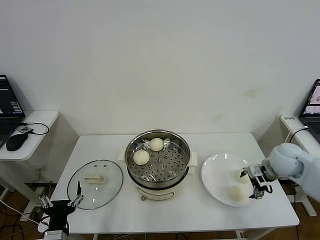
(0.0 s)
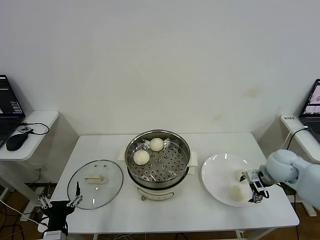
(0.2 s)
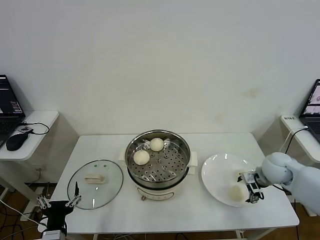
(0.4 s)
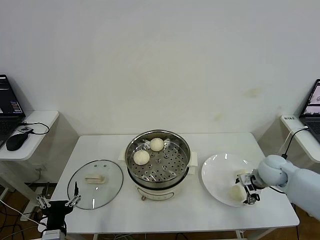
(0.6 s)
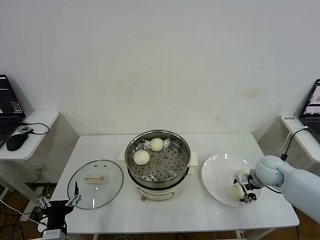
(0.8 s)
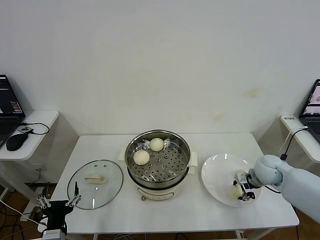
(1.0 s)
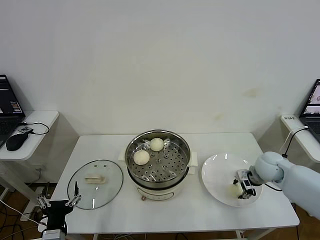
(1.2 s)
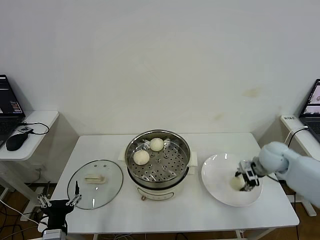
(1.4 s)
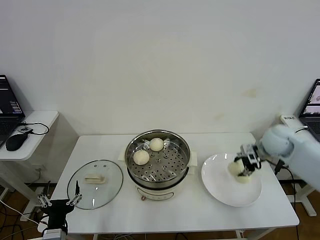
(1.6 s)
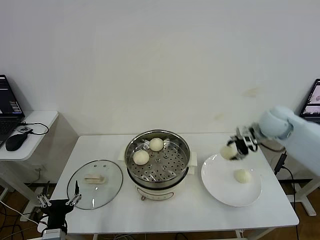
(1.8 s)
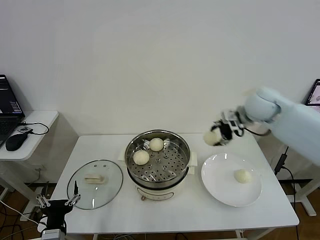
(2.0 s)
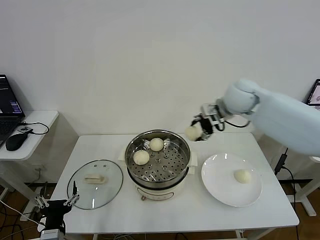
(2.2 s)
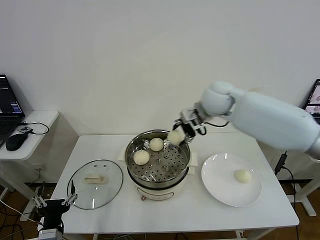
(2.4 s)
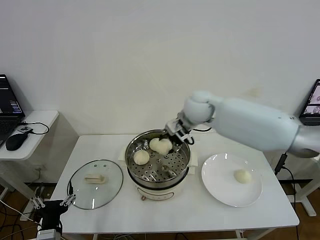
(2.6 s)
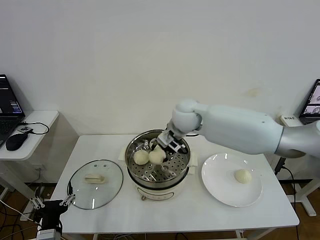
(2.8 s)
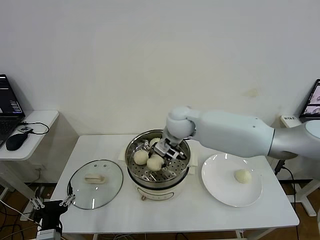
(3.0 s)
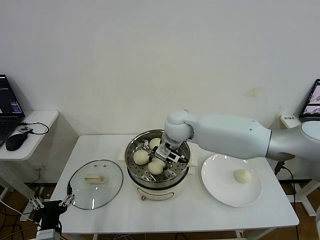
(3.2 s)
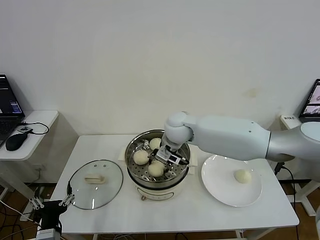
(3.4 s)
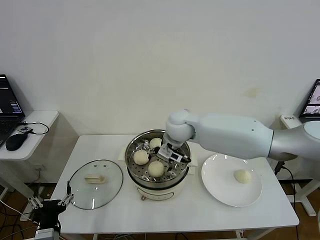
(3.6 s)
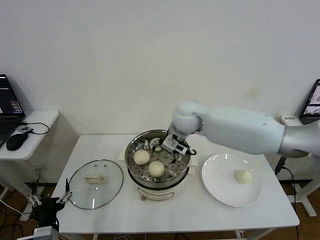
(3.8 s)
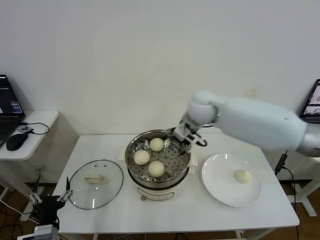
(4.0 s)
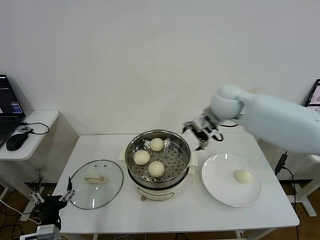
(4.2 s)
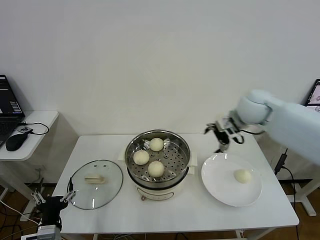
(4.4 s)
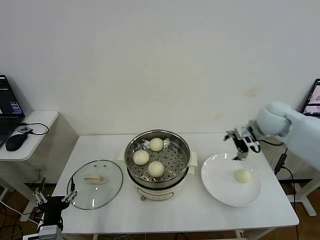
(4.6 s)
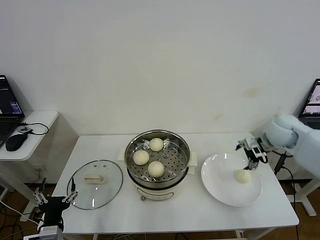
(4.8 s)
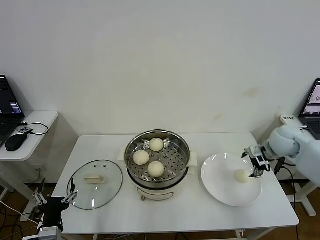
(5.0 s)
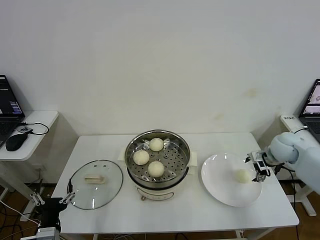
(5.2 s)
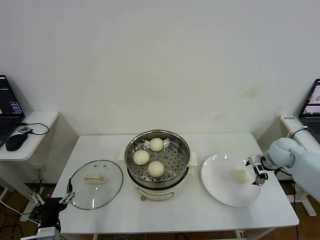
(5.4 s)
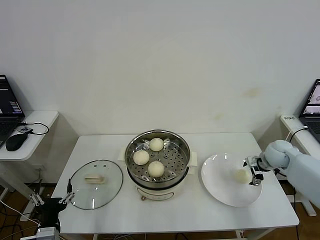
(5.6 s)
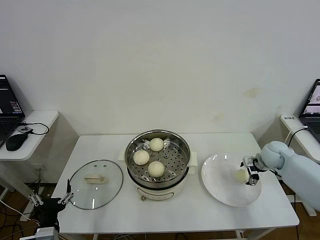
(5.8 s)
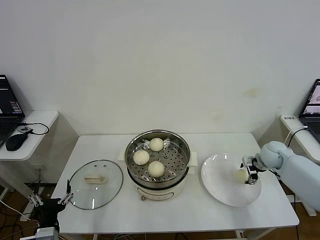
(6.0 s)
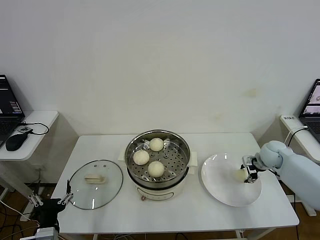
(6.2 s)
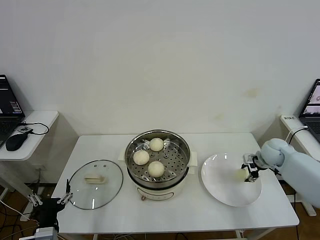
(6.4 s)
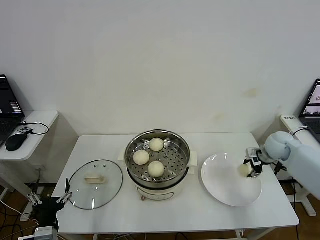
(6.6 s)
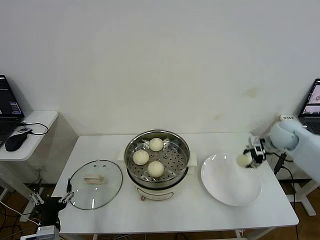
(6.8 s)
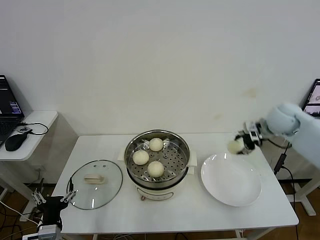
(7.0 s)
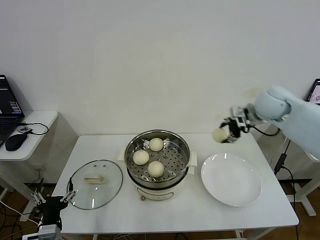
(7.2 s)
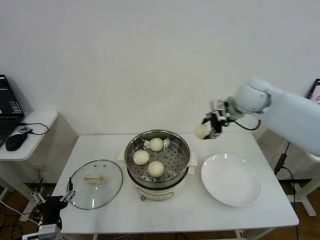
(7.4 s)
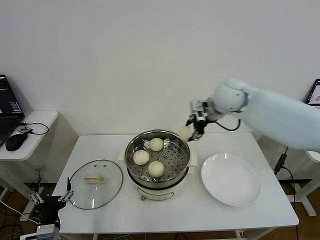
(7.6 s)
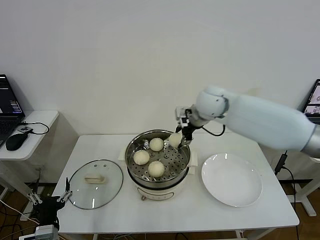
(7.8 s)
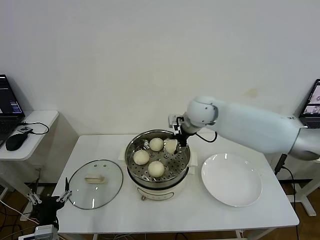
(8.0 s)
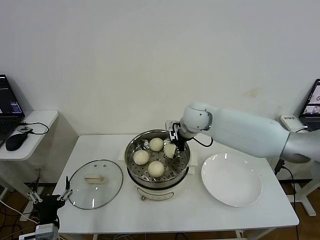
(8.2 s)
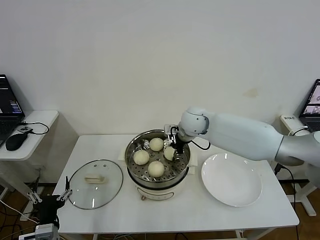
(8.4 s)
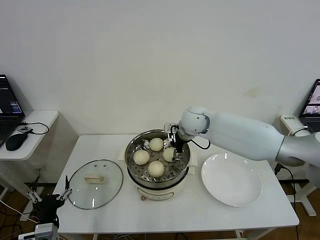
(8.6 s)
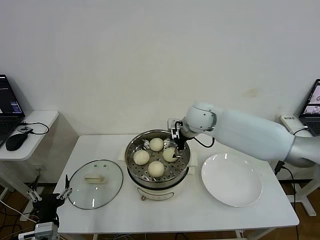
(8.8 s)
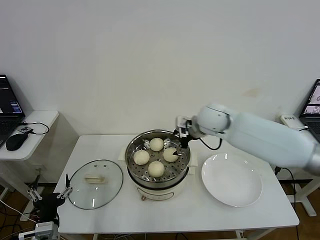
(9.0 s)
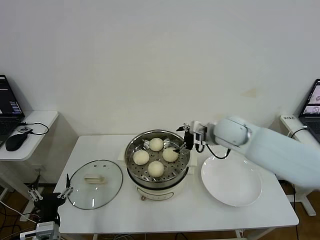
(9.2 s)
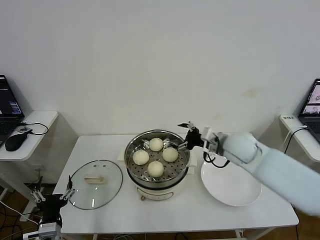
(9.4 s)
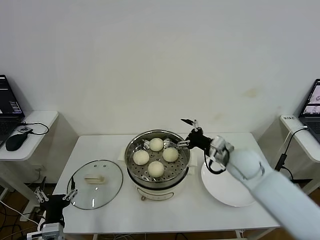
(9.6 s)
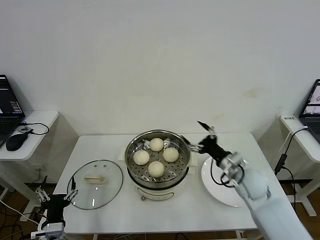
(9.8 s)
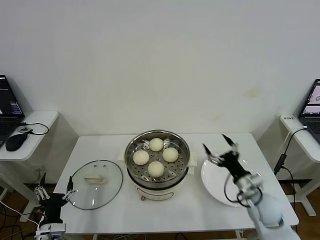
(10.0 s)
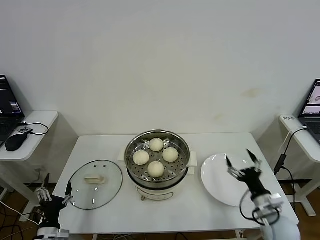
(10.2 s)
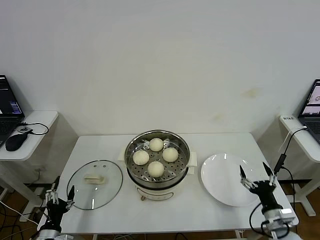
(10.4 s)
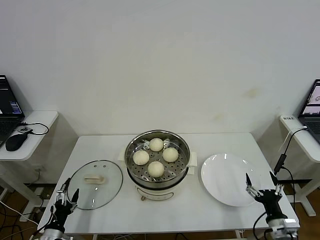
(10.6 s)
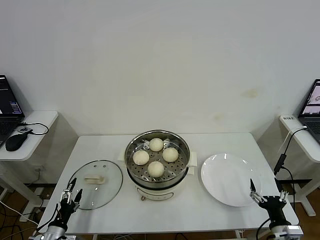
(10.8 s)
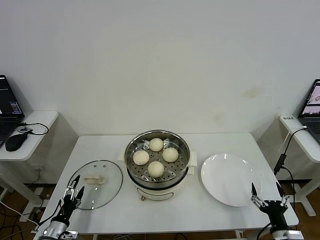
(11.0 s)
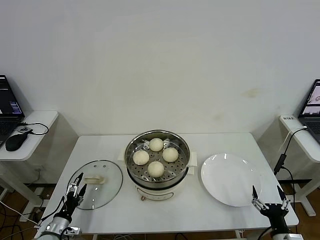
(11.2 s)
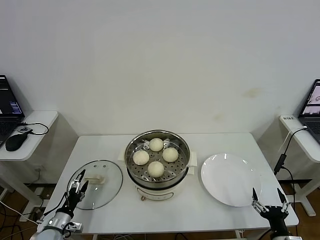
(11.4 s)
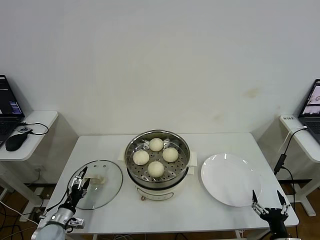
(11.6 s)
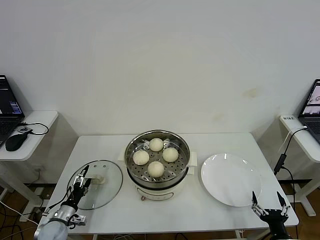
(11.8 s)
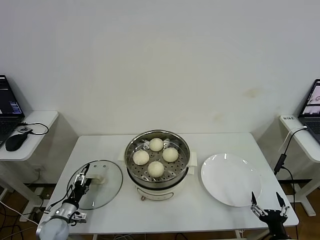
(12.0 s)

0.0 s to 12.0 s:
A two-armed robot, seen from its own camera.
Step, 1.2 to 3.6 s: Place the baozi on the steamer with right gripper.
Step, 3.8 to 6.2 s: Grasp the baozi in the plate with right gripper.
Step, 6.4 to 8.6 s: Place the baozi on the steamer with right gripper.
0.0 to 1.6 s: The right gripper moves forward and upward, some 10 cm, and closes its fingers.
1.6 to 3.0 s: The right gripper travels to the left by approximately 30 cm.
3.0 to 4.4 s: The right gripper is displaced to the right by about 25 cm, and opens its fingers.
4.4 to 6.0 s: The right gripper shifts about 25 cm downward and to the right.
6.0 to 7.6 s: The right gripper is displaced upward and to the left by approximately 35 cm, and closes up.
7.6 to 9.0 s: The right gripper shifts some 5 cm downward, and opens up.
9.0 to 10.4 s: The left gripper travels downward and to the left by some 10 cm. The right gripper heads backward, downward and to the right, covering some 40 cm.
10.4 to 12.0 s: The left gripper is displaced forward and downward by about 10 cm, while the right gripper travels backward by roughly 10 cm.

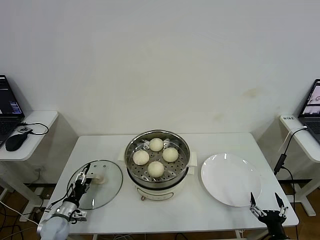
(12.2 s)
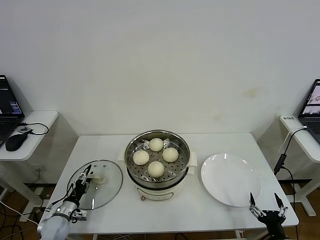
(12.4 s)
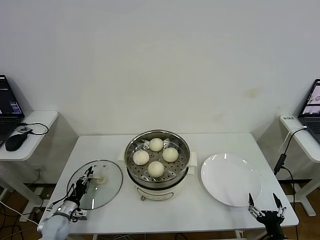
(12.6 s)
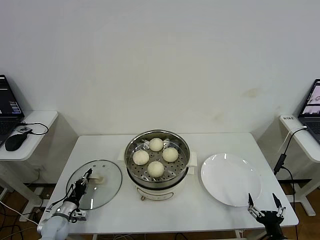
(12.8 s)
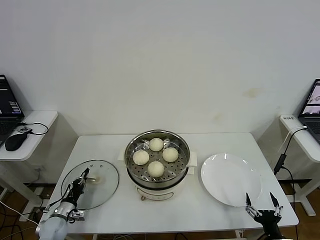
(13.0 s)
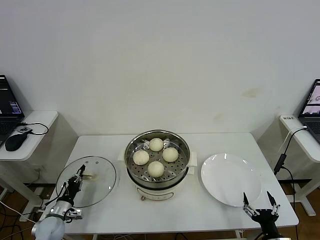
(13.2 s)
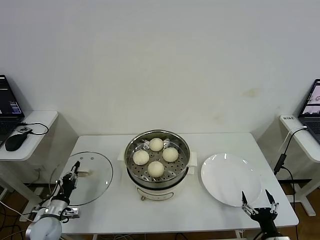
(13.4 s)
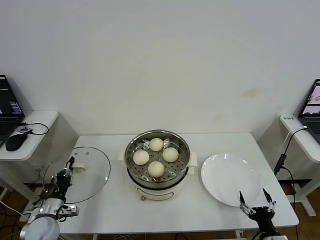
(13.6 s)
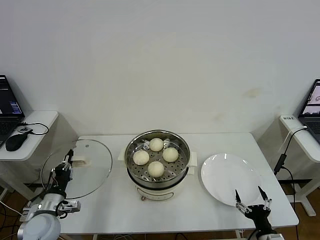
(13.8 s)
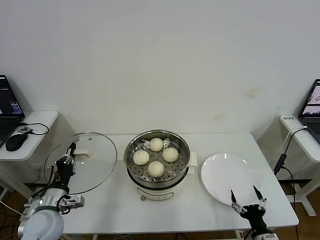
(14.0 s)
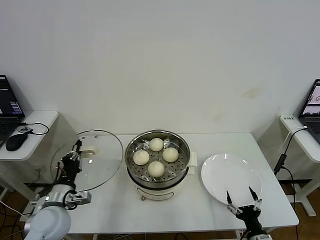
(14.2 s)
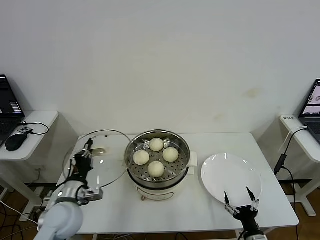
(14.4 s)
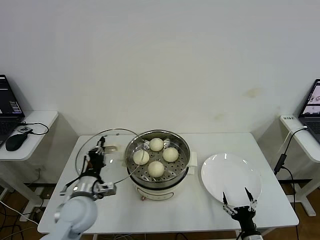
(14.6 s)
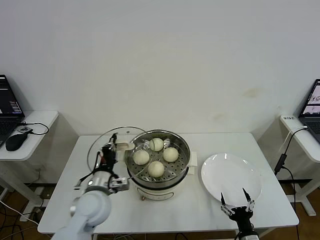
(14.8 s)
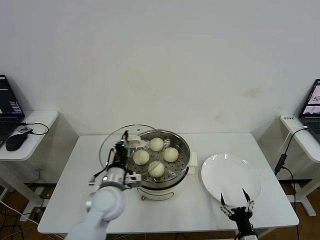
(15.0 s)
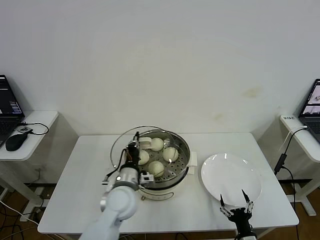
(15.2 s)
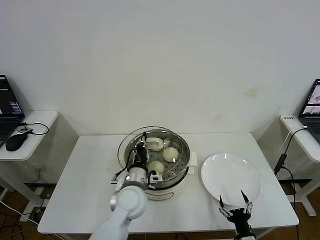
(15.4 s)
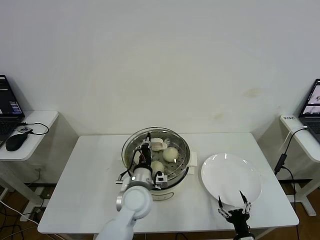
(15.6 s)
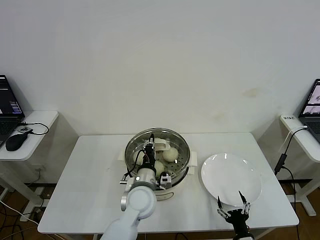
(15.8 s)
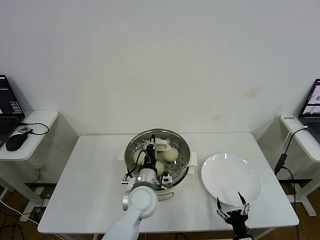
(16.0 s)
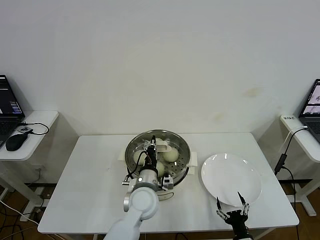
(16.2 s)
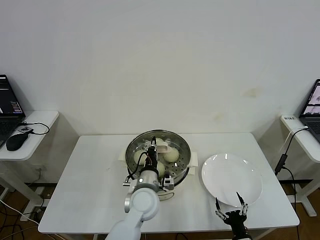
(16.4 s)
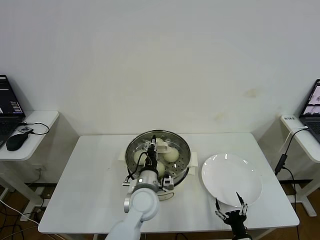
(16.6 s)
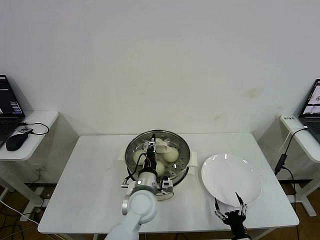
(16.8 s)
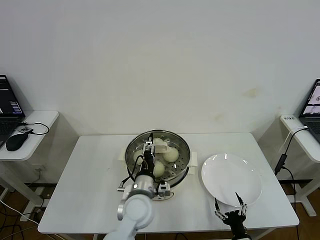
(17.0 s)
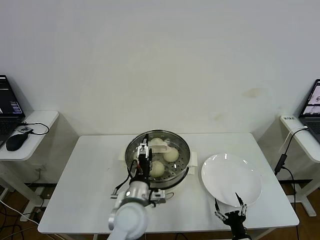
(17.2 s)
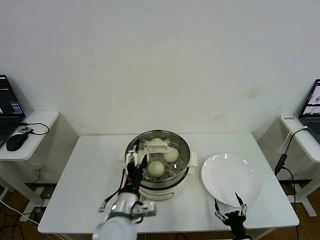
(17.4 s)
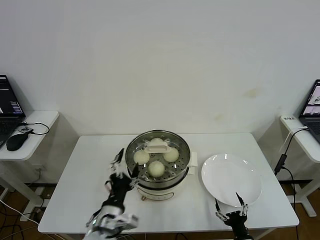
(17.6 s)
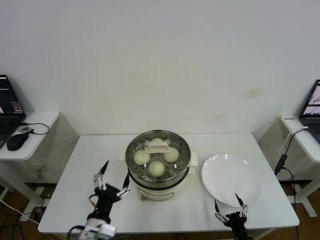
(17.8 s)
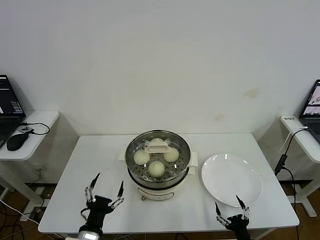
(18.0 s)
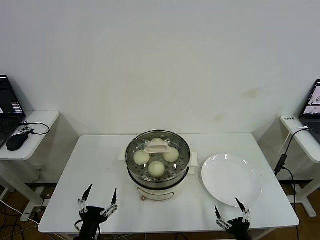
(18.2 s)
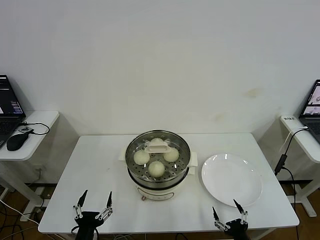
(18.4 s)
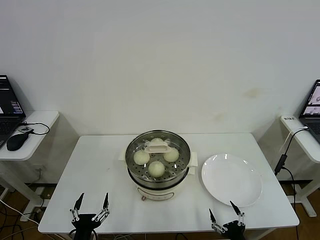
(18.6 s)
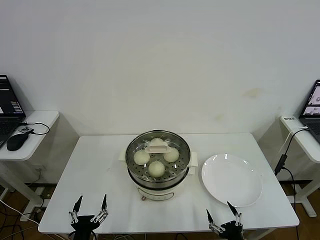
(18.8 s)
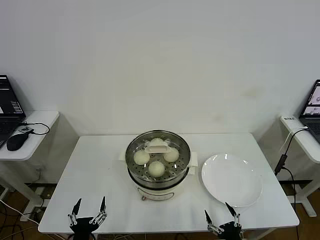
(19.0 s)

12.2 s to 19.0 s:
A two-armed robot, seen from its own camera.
Step, 13.2 to 16.6 s: Place the pot lid on the steamer with left gripper.
12.2 to 13.6 s: The left gripper heads upward, covering roughly 10 cm, and closes its fingers.
13.6 to 15.0 s: The right gripper heads to the left, covering some 5 cm. The left gripper moves to the right and upward, some 25 cm.
15.0 to 16.2 s: The left gripper moves to the right, roughly 10 cm.
16.2 to 17.6 s: The left gripper moves backward and to the left, approximately 15 cm, and opens up.
17.6 to 19.0 s: The left gripper goes about 20 cm to the left, downward and backward. The right gripper ends up approximately 5 cm from where it was.
